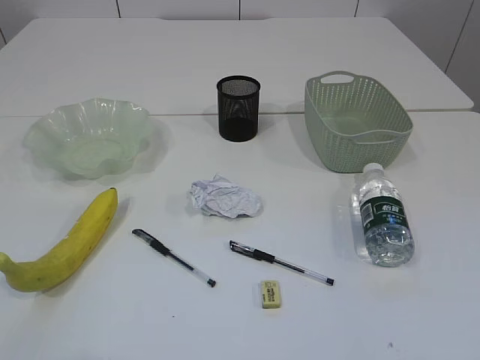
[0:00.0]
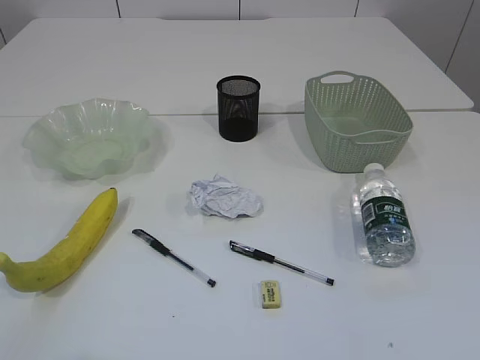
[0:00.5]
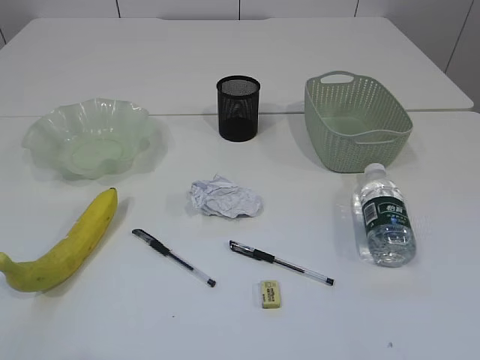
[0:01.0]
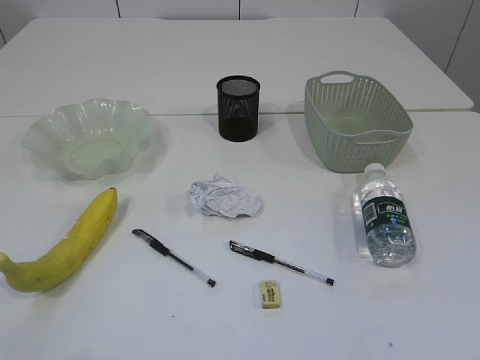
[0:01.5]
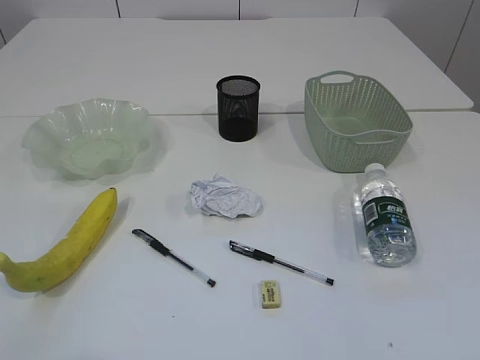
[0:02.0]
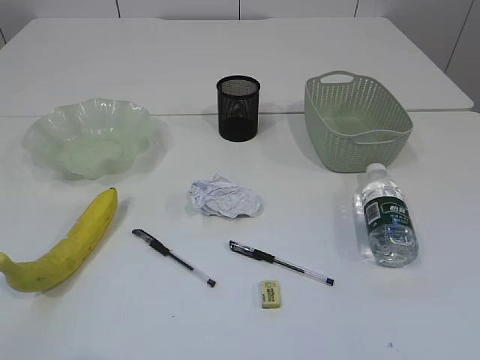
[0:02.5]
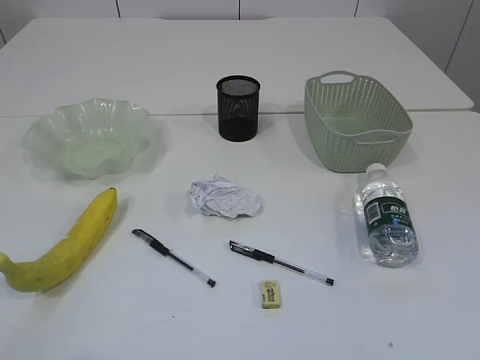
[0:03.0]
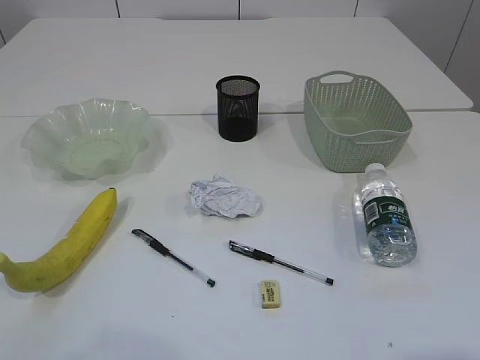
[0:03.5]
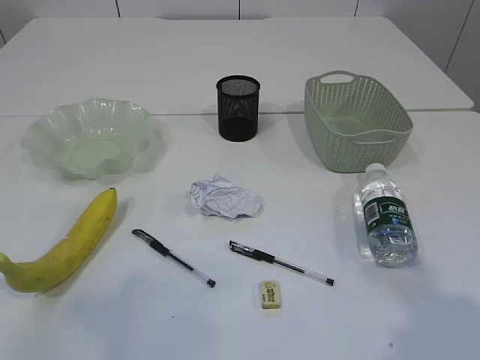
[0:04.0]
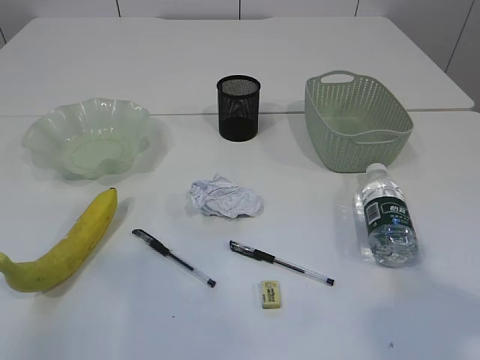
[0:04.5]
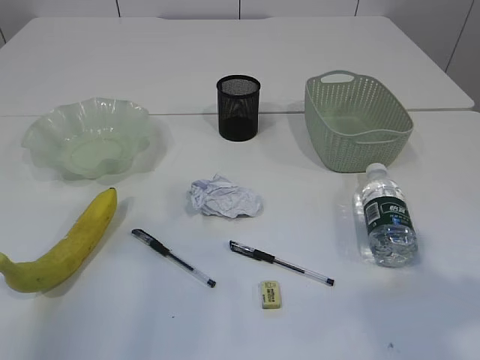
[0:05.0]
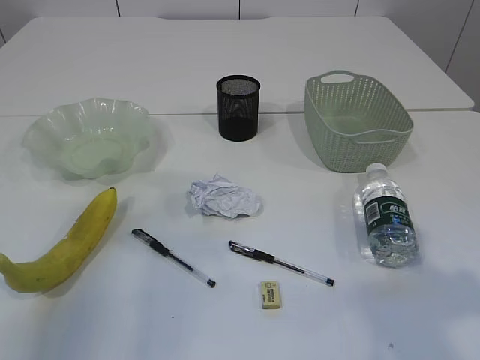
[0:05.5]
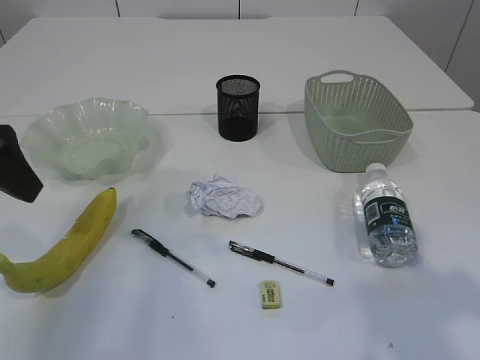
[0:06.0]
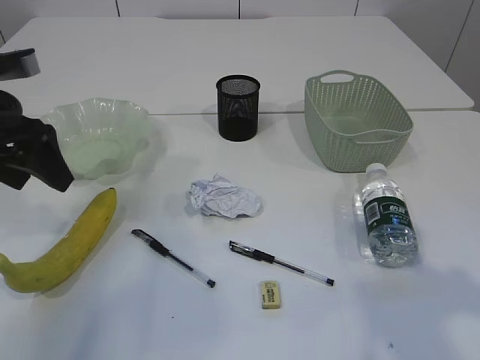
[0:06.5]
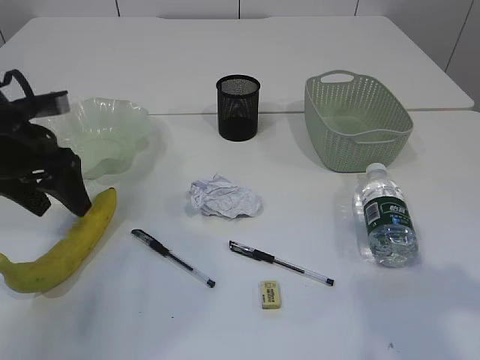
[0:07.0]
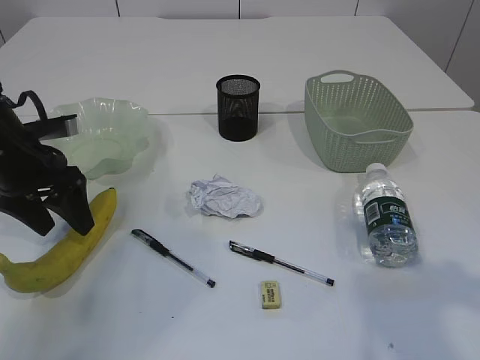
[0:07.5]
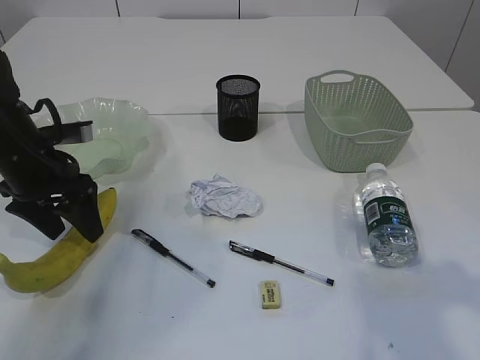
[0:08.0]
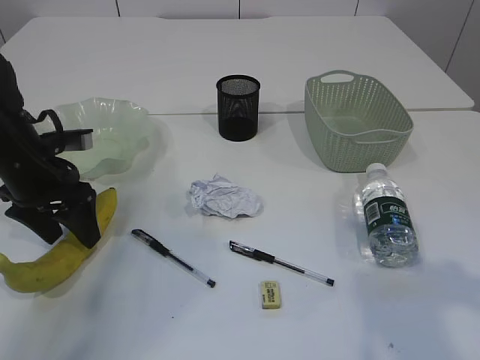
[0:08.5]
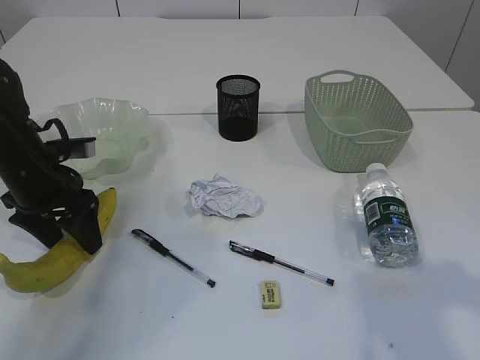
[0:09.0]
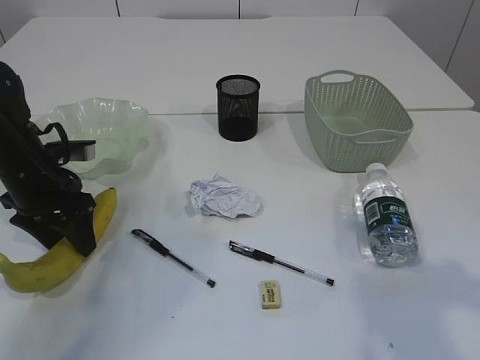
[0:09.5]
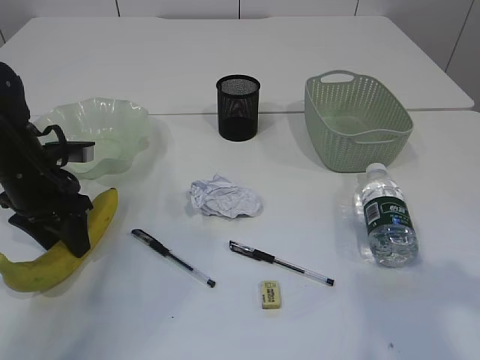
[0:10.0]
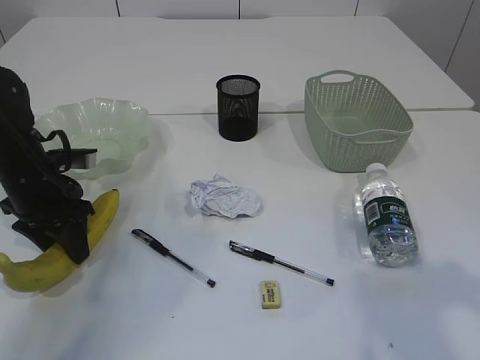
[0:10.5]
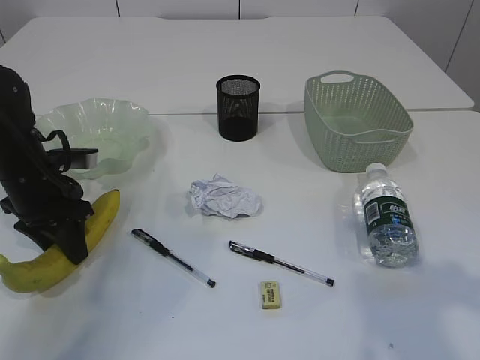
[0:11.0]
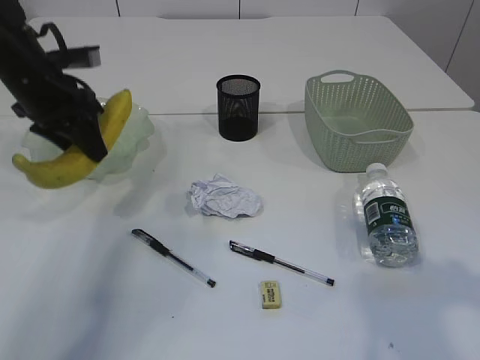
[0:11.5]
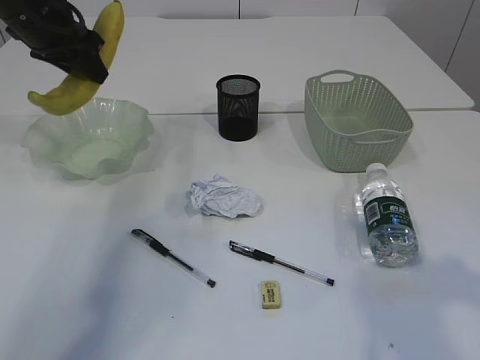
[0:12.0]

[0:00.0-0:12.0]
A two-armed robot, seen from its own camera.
0:02.0 to 0:04.0: The left gripper is displaced upward and forward by some 15 cm.
0:04.0 to 0:06.0: The left gripper moves forward and downward, approximately 25 cm, and opens its fingers.
0:06.0 to 0:08.0: The left gripper goes roughly 15 cm downward and forward.
0:08.0 to 0:10.0: The grippers move only a little.
0:10.0 to 0:12.0: The left gripper travels upward and forward by approximately 20 cm.

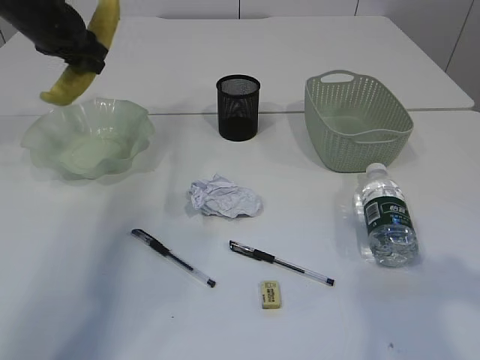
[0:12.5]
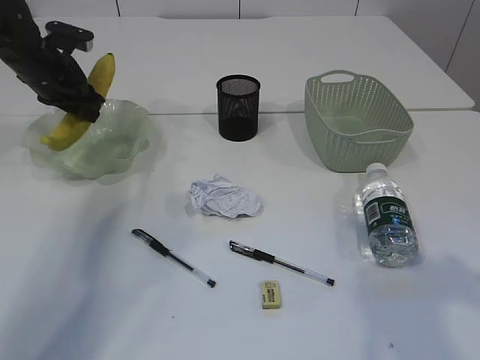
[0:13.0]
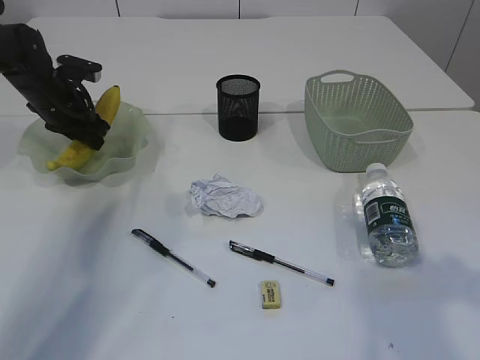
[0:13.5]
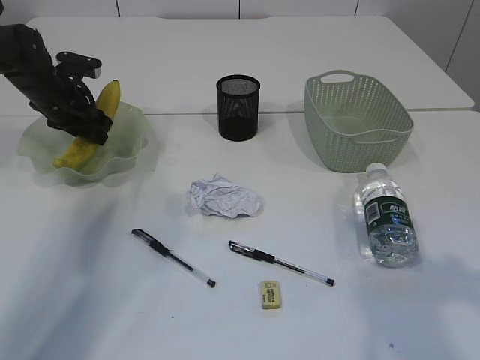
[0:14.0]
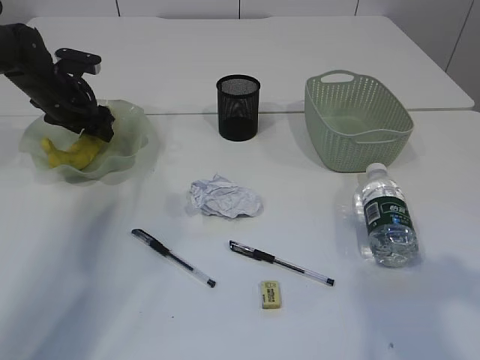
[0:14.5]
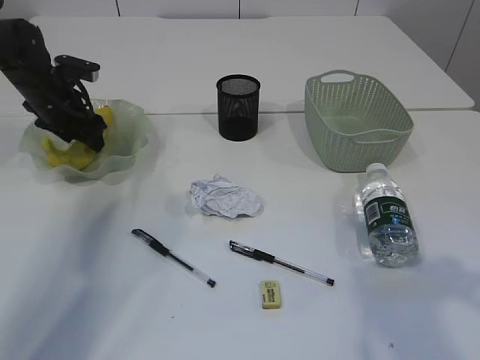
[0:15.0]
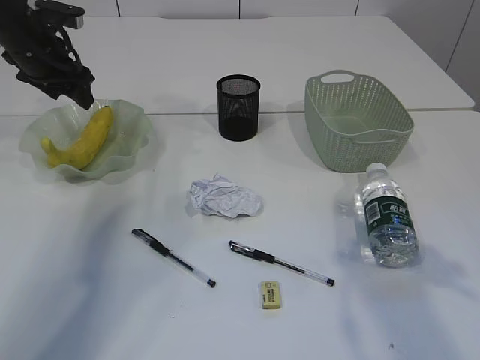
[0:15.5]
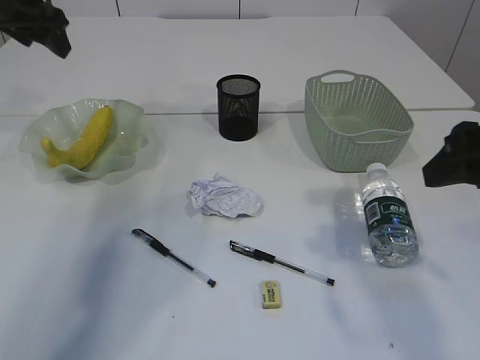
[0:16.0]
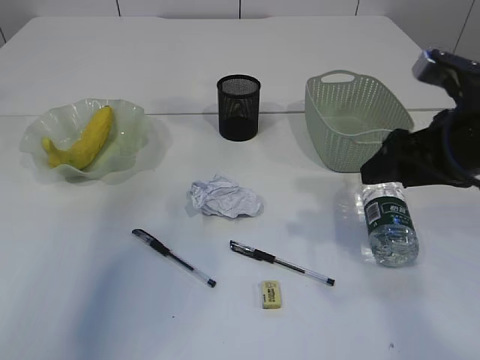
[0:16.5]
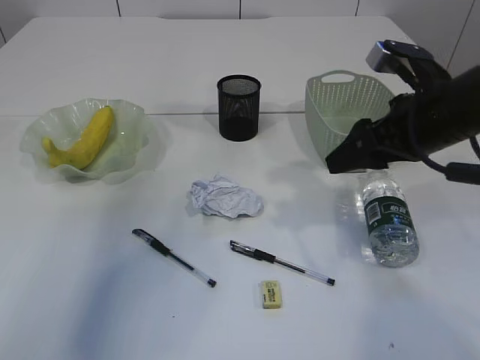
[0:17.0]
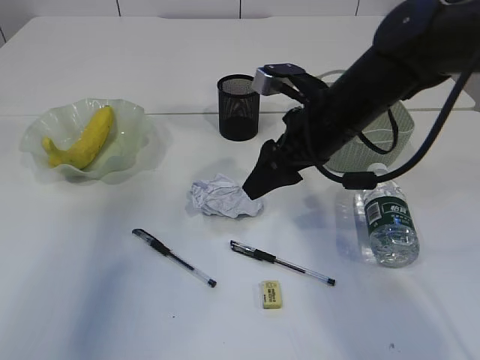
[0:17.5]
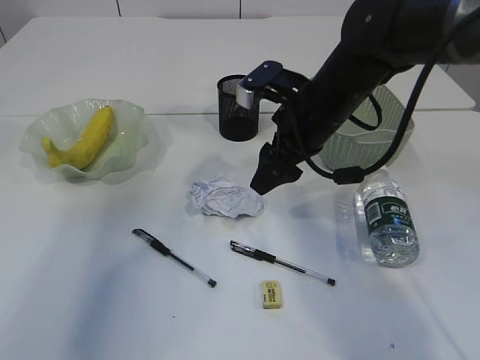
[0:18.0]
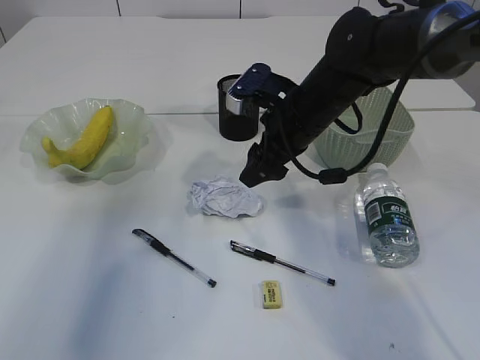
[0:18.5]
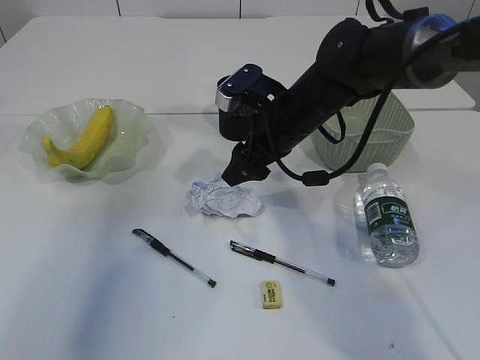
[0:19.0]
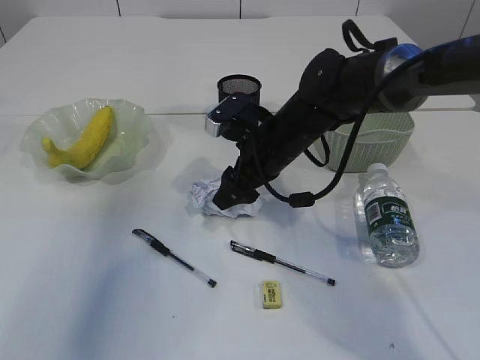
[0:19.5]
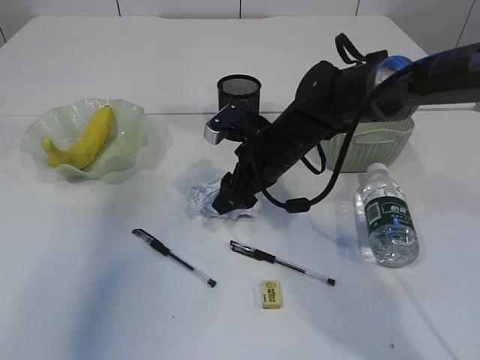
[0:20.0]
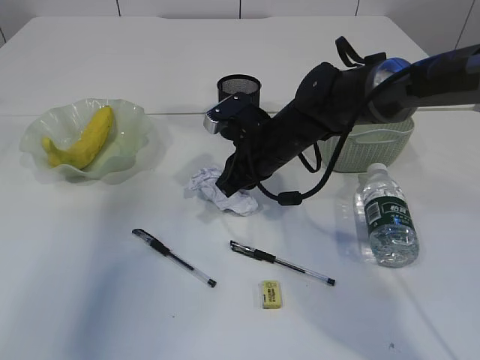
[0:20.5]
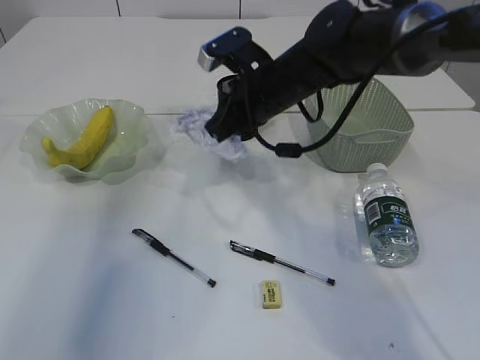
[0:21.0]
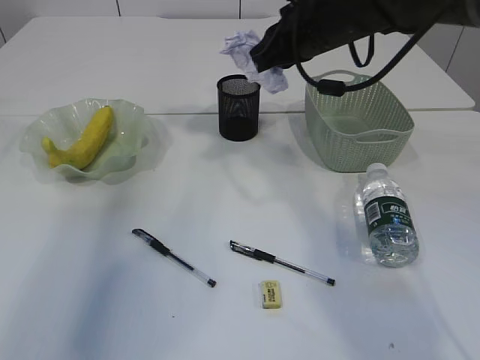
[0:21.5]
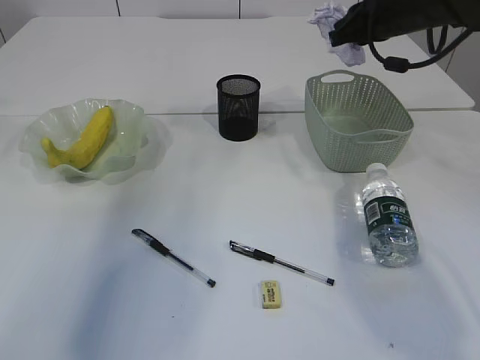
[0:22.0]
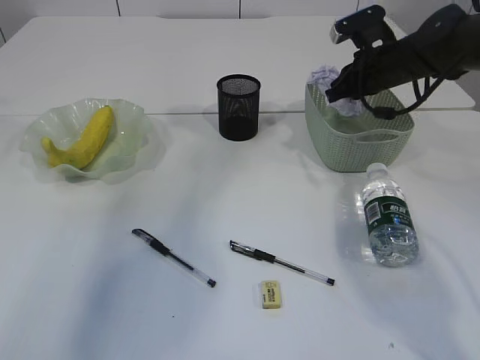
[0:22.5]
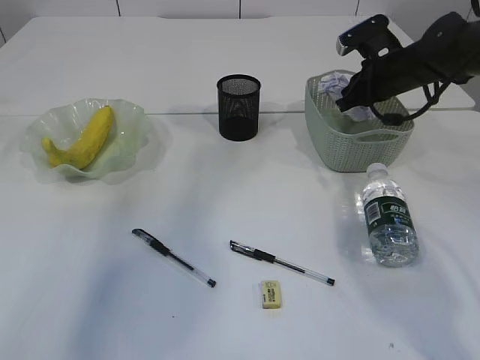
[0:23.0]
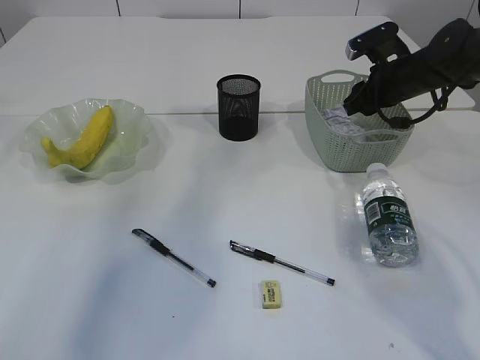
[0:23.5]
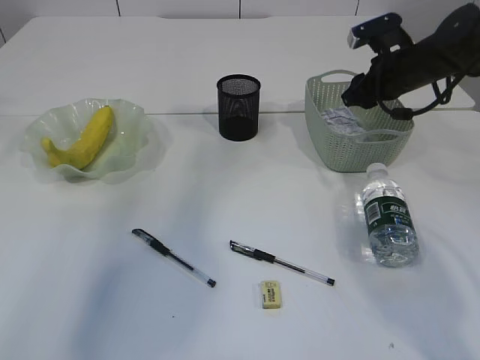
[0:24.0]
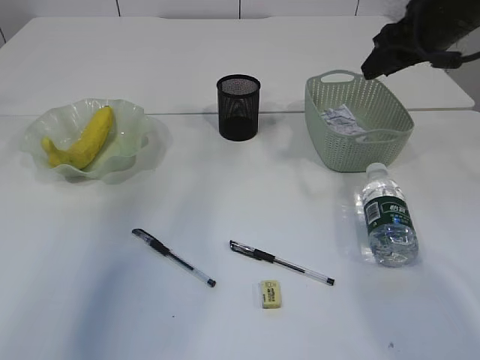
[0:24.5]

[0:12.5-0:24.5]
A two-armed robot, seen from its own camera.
Step, 0:12.5 to 0:15.0: Place the banana in the plate.
Step, 0:15.5 to 0:20.5: Pick up the waste paper.
Step, 0:21.0 to 0:23.5: Place the waste paper in the basket.
0:12.5 to 0:14.5: The left gripper travels downward by approximately 15 cm, and opens its fingers.
0:14.5 to 0:16.5: The left gripper travels upward by roughly 25 cm. Meanwhile the right gripper shifts some 15 cm forward, downward and to the left.
0:16.5 to 0:18.5: The right gripper travels to the left and forward by approximately 20 cm.
0:18.5 to 0:20.5: The right gripper heads downward, covering about 5 cm, and closes up.
0:20.5 to 0:22.5: The right gripper heads to the right and forward, covering some 20 cm.
0:22.5 to 0:24.5: The right gripper heads upward and backward, covering roughly 10 cm, and opens its fingers.

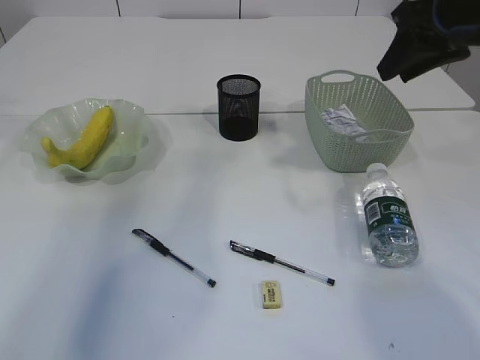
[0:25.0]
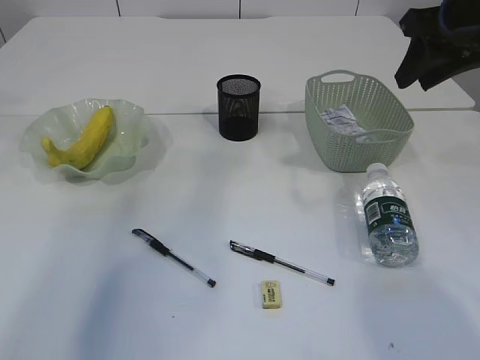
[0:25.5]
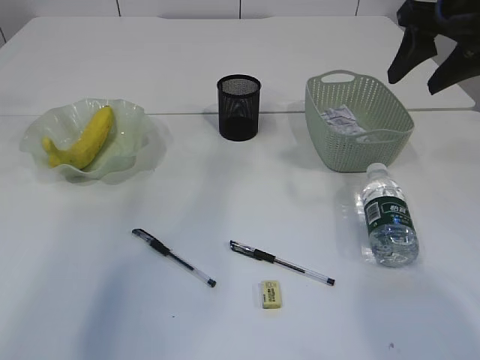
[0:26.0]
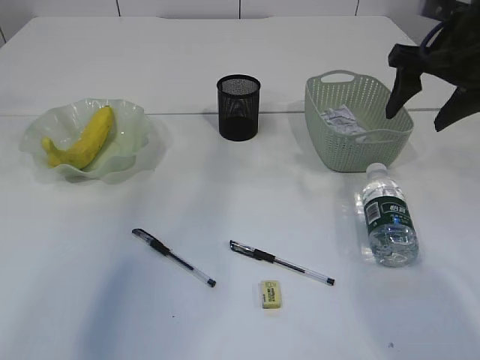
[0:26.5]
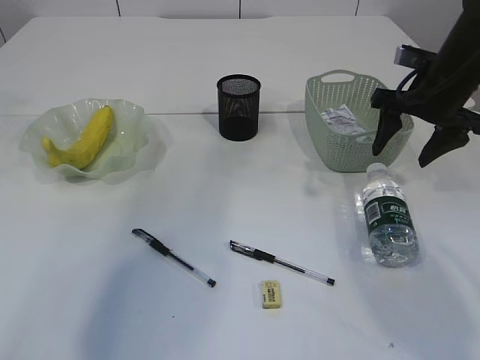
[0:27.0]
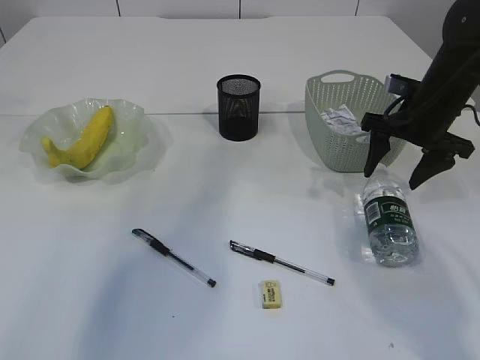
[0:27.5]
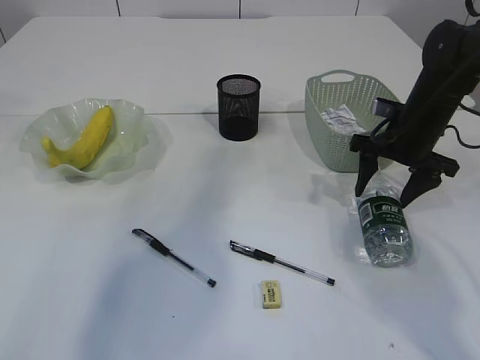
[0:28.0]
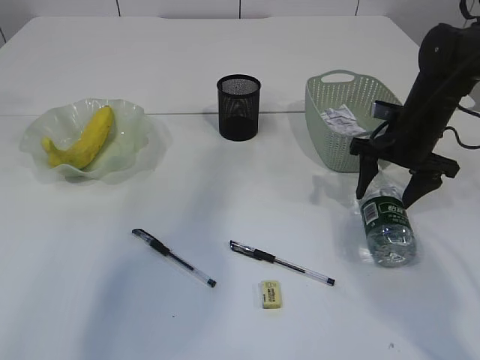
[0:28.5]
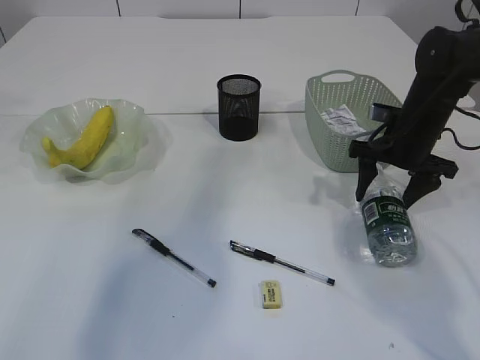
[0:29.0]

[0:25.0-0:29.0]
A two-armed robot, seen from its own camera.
0:25.0 to 0:27.0: The right gripper shifts approximately 10 cm downward, and opens.
0:27.0 to 0:29.0: The right gripper moves downward, roughly 10 cm.
